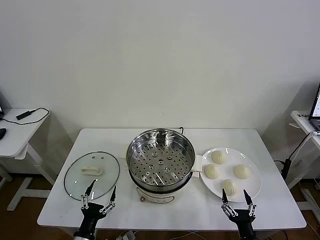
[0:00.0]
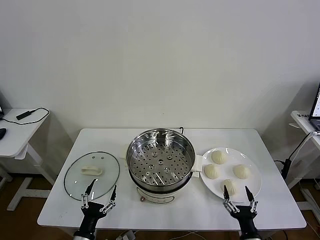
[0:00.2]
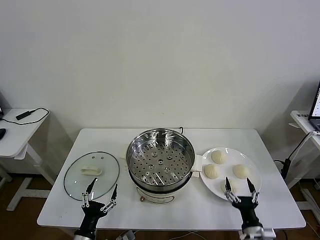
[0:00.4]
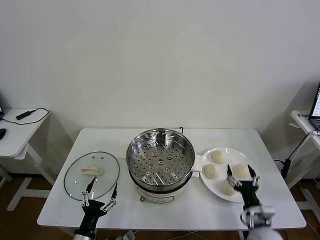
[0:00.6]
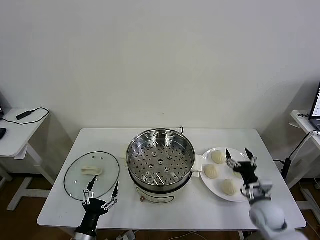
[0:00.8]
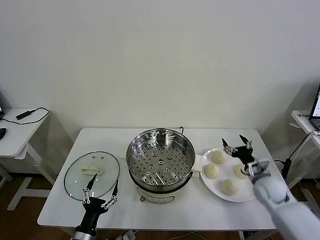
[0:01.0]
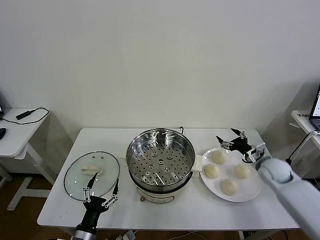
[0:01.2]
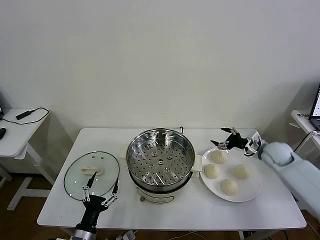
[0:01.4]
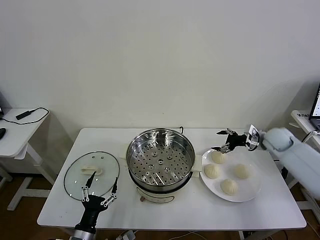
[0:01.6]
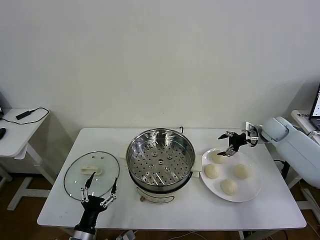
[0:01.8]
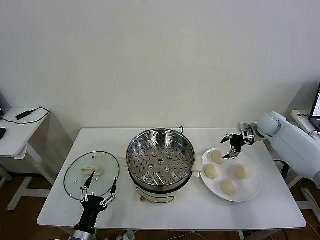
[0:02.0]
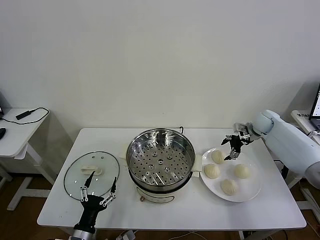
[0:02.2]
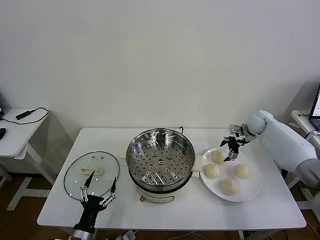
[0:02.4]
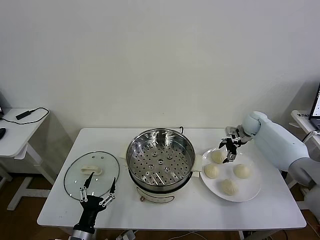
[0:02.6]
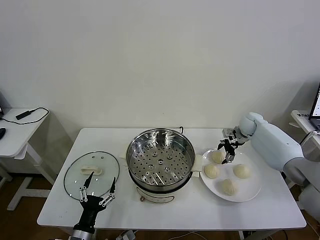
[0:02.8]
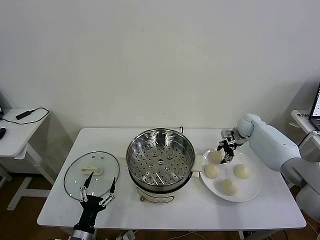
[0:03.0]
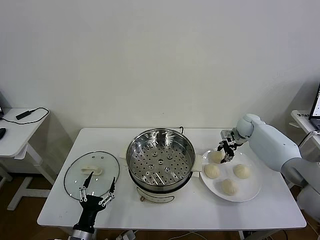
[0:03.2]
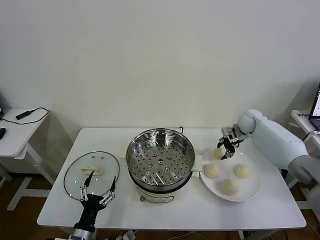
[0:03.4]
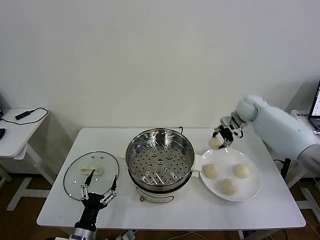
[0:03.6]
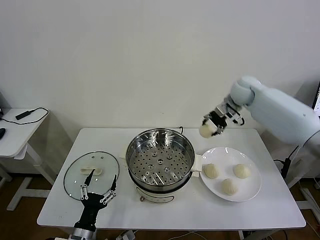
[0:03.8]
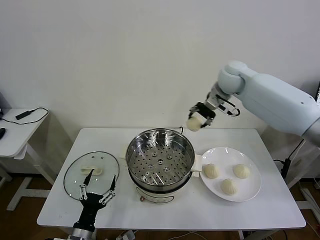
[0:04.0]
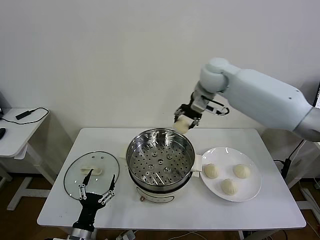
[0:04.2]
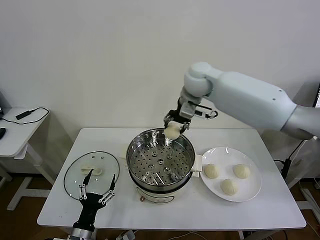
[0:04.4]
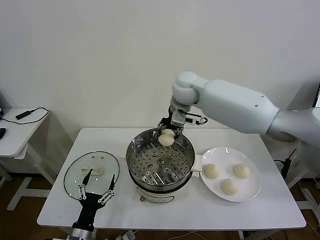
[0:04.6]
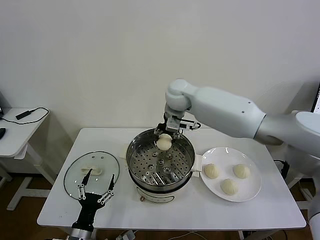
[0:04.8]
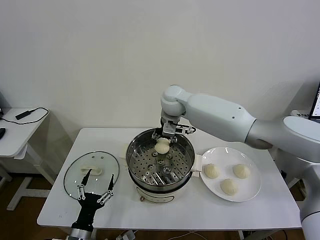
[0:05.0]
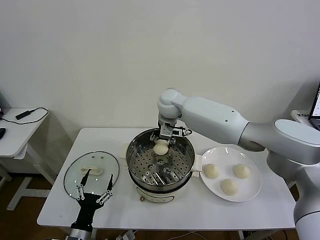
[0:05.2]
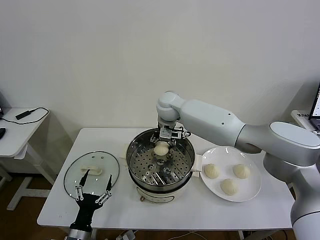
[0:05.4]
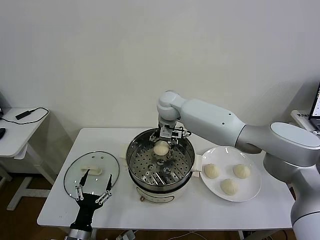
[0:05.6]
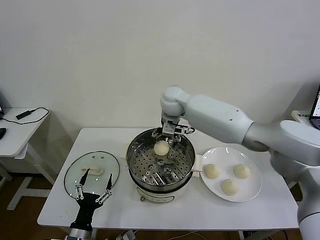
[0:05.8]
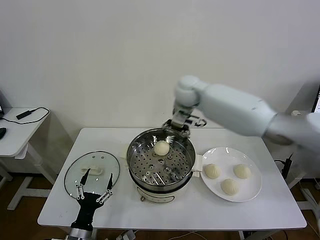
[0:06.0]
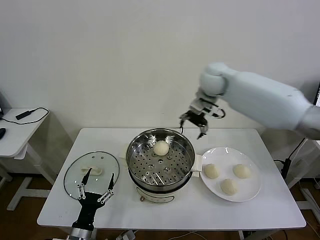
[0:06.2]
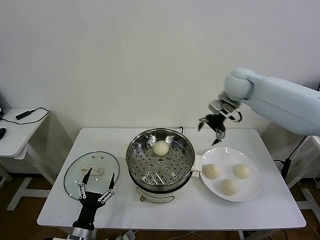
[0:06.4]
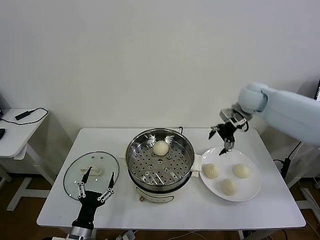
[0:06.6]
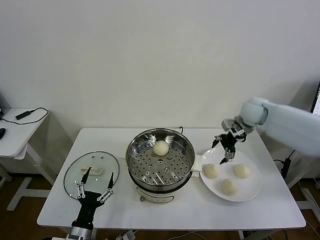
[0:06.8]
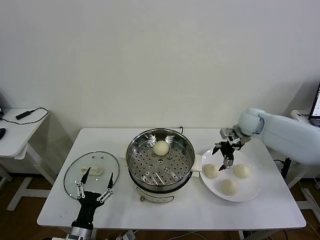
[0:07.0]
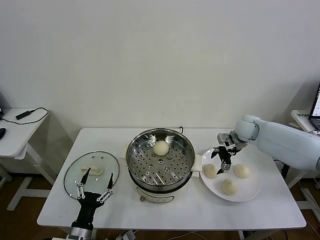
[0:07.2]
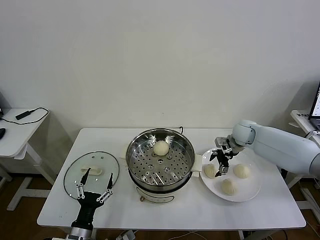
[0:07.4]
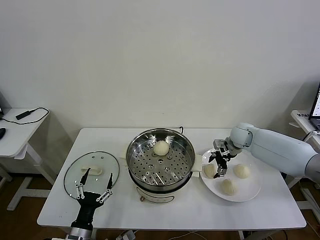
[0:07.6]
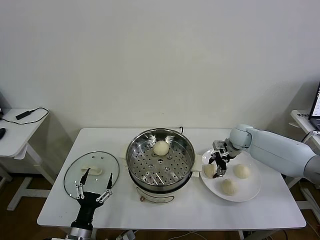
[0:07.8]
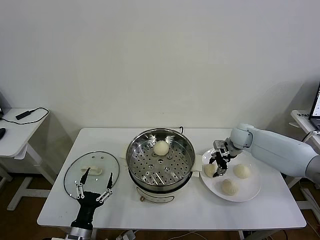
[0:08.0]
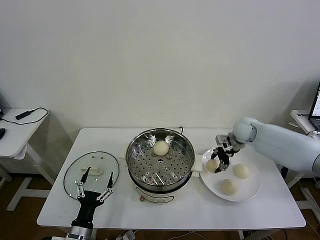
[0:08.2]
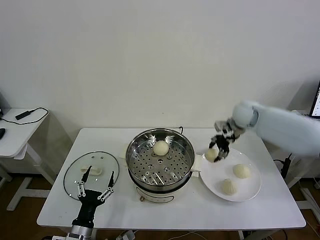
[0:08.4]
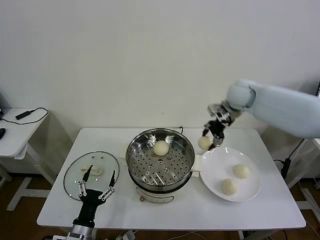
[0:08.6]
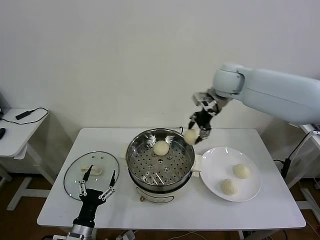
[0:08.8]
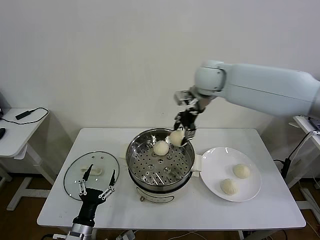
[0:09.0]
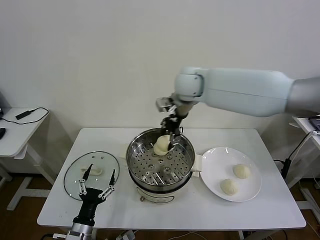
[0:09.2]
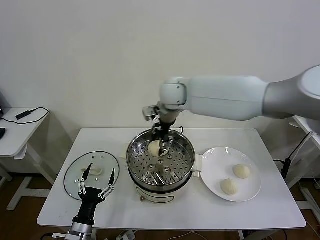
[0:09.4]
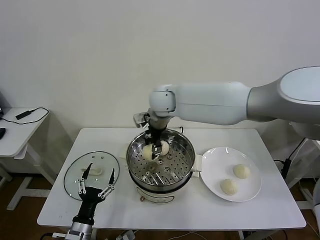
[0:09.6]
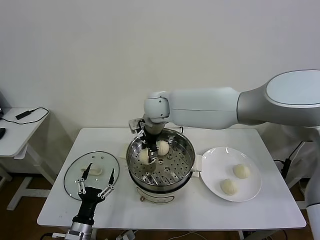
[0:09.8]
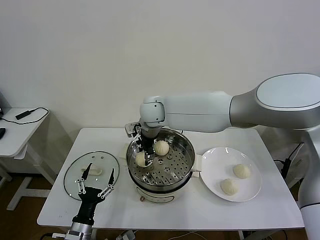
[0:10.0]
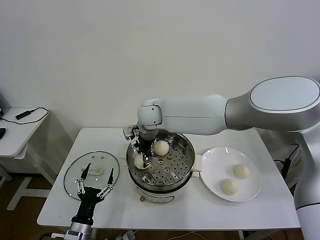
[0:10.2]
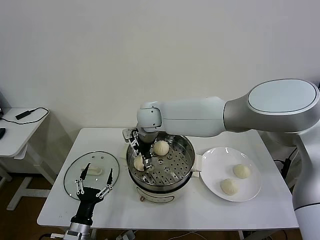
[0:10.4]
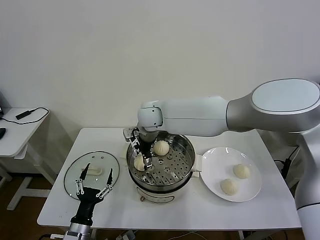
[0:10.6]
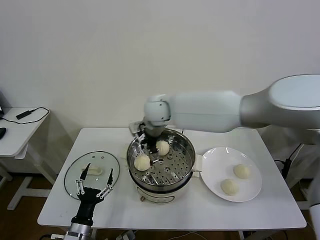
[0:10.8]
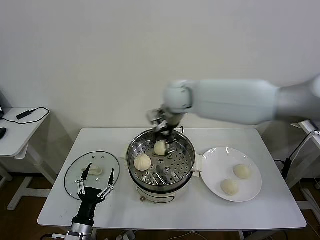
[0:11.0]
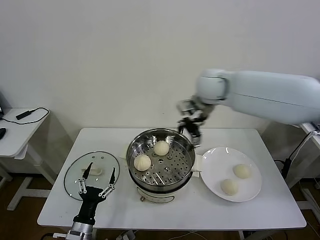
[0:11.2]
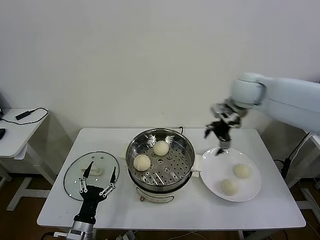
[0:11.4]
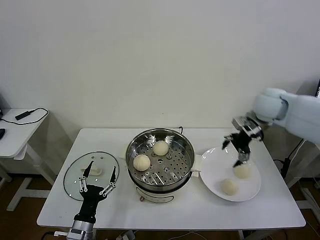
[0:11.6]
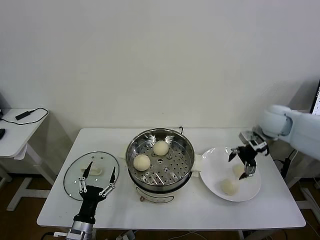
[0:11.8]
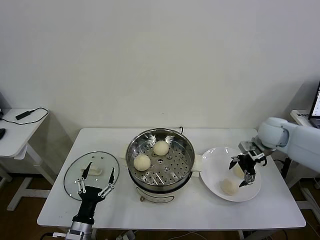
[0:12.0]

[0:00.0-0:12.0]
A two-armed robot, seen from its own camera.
Task of the whole recording: take steamed baozi put them in steamer then cover it.
Step, 0:00.0 to 0:03.0: Grasp the baozi in the plate with right gripper.
Step, 0:03.4 to 0:05.6: Place the baozi on the steamer with right gripper.
Step, 0:05.8 to 0:08.0: Grasp the baozi in the plate with right gripper.
Step, 0:08.2 to 0:10.4: Place the baozi on the steamer with right gripper.
0:01.6 to 0:03.0: The right gripper travels forward and to the left by some 10 cm, and closes.
0:03.0 to 0:04.4: The right gripper travels to the left and upward by approximately 35 cm.
0:04.4 to 0:06.0: The right gripper goes to the left and returns, roughly 5 cm each way, and opens its fingers.
0:06.0 to 0:07.6: The right gripper shifts some 30 cm downward and to the right.
0:07.6 to 0:09.0: The right gripper heads upward and to the left, covering roughly 30 cm, and closes its fingers.
0:09.0 to 0:10.4: The right gripper travels to the left and downward by roughly 20 cm, and opens its fingers.
0:10.4 to 0:12.0: The right gripper is displaced to the right by some 40 cm.

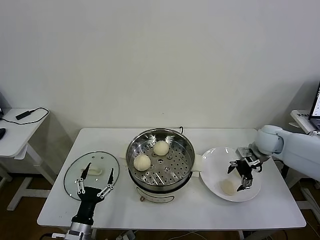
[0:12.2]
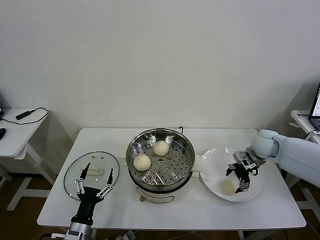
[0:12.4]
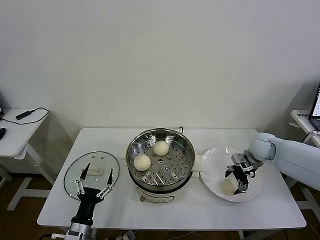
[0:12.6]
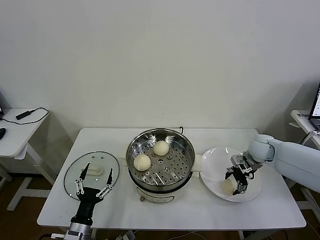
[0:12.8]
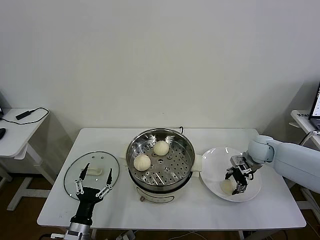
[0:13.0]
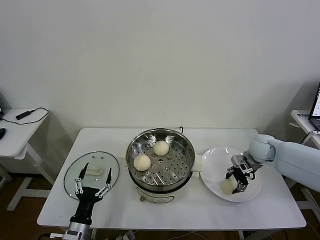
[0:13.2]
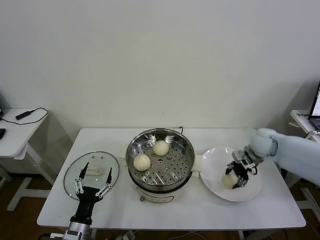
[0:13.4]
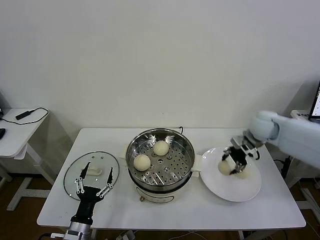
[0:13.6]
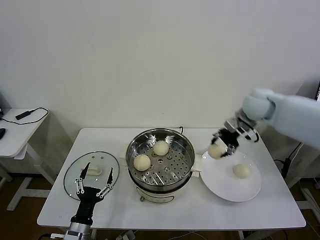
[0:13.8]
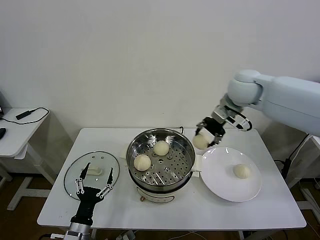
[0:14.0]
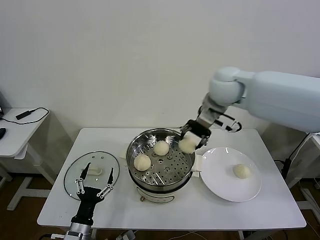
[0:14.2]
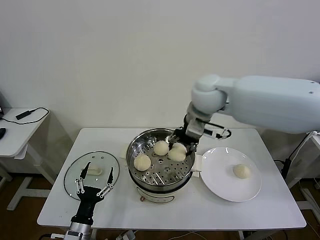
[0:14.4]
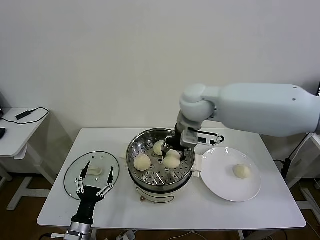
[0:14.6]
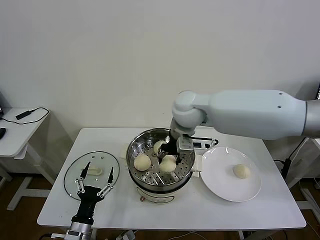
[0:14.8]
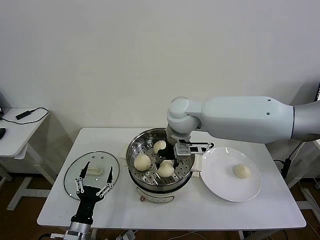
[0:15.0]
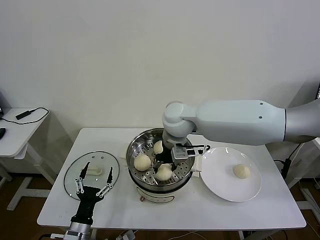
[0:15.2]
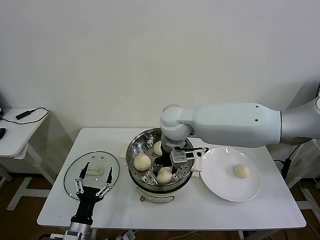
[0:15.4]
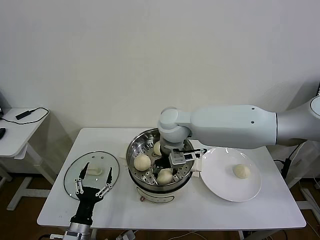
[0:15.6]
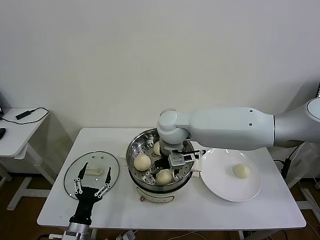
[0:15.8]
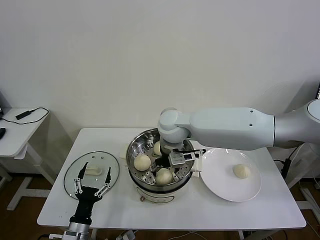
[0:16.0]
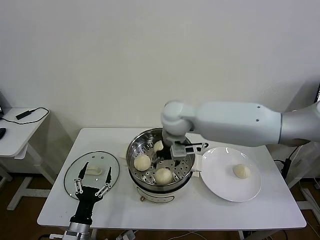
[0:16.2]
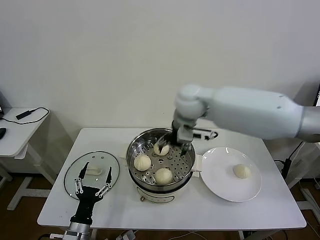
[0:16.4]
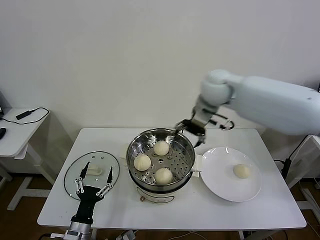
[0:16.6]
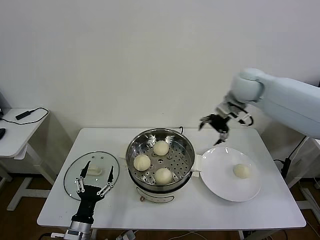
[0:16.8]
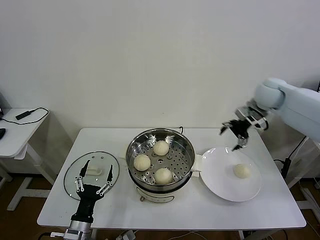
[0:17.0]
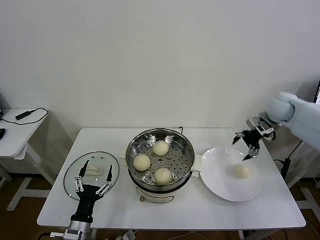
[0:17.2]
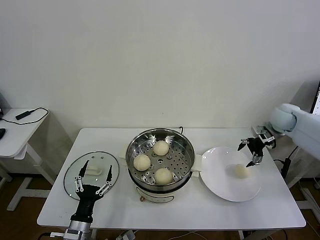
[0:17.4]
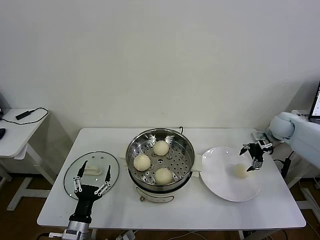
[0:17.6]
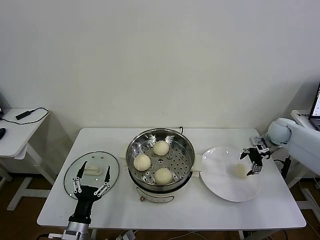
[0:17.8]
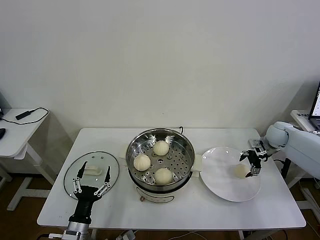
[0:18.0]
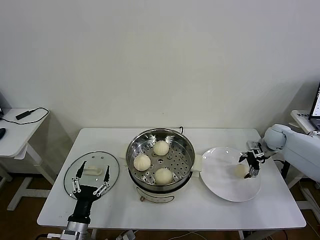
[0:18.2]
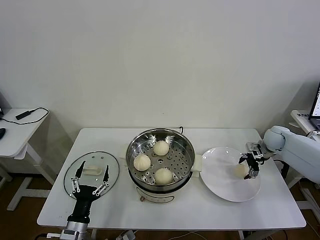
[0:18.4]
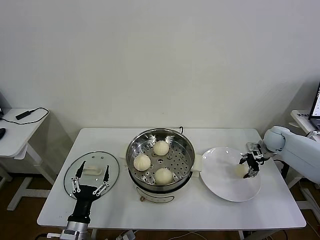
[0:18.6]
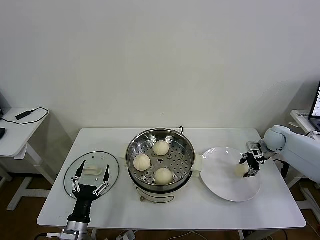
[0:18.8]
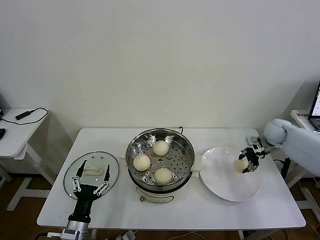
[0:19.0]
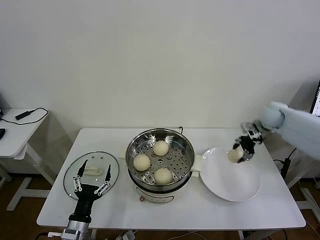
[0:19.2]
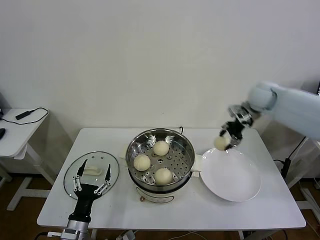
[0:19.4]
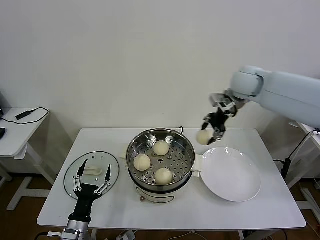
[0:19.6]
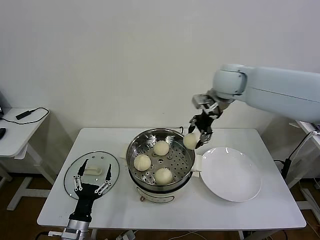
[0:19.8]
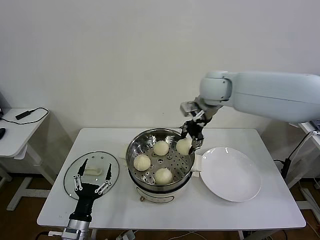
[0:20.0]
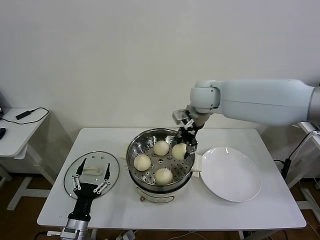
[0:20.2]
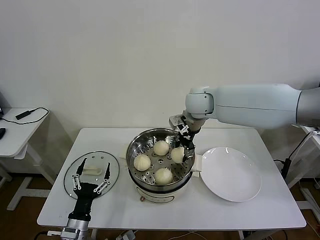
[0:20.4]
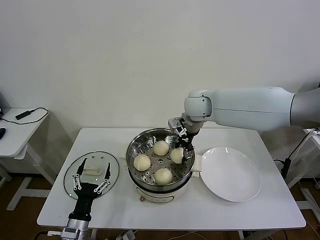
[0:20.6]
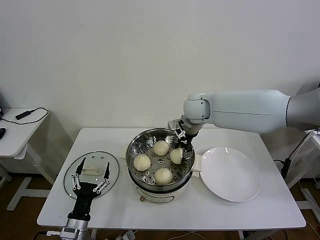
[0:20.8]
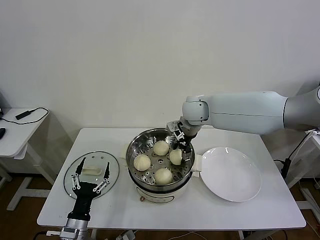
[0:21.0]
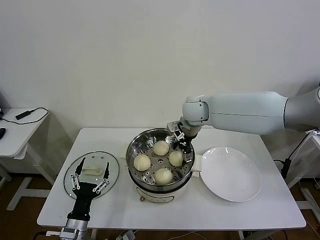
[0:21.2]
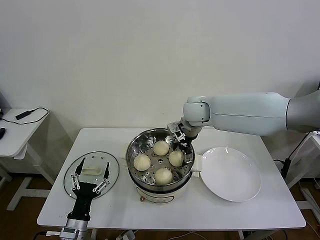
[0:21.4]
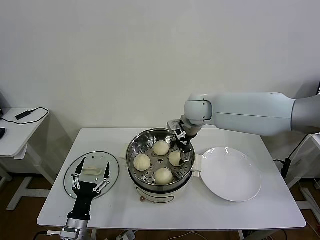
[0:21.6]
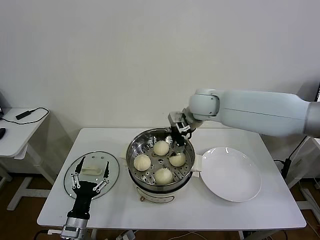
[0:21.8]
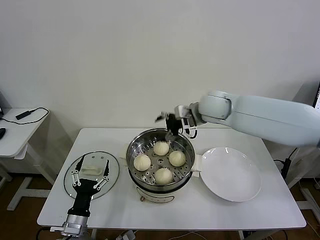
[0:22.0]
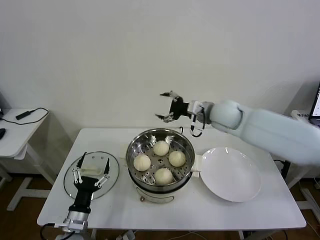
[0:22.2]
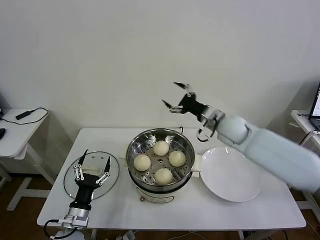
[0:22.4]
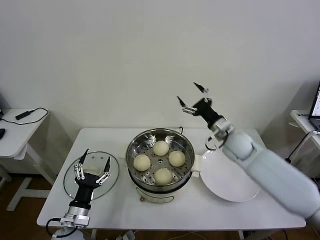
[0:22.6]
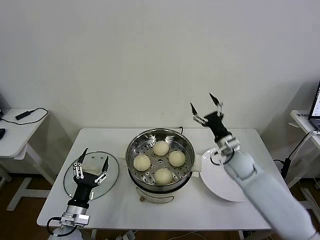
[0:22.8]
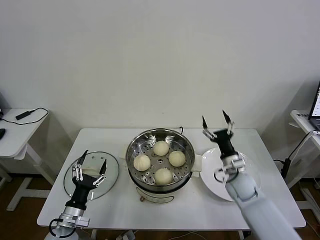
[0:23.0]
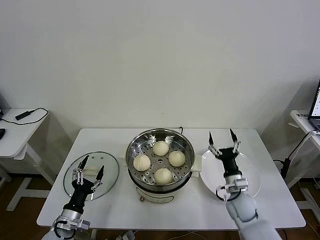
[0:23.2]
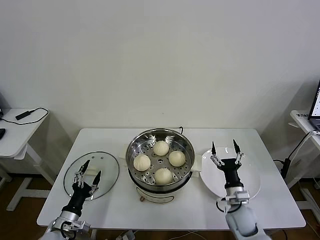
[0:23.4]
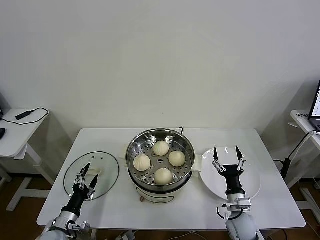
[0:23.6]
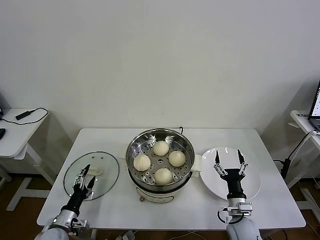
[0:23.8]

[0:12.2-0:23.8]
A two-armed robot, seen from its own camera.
Task of the whole recording: take steamed baozi put them in steamer then cover it.
Step, 0:13.4 to 0:16.0: Place the baozi on the steamer with right gripper.
Step, 0:16.2 to 0:18.8: Grasp the baozi in the plate with right gripper.
Step, 0:19.0 to 0:21.2: Place the baozi on the steamer with right gripper.
0:12.2 to 0:13.6: The right gripper shifts roughly 10 cm upward, and closes up.
0:13.6 to 0:15.0: The right gripper moves to the left, approximately 30 cm.
0:15.0 to 0:16.6: The right gripper moves to the right, forward and upward, roughly 15 cm, and opens its fingers.
0:16.6 to 0:18.0: The right gripper goes some 35 cm to the right and downward.
0:18.0 to 0:19.4: The right gripper heads upward and to the left, covering approximately 20 cm, and closes up.
0:19.4 to 0:21.0: The right gripper moves to the left, about 20 cm, and opens up.
0:21.0 to 0:22.4: The right gripper heads to the right and downward, covering roughly 15 cm, and opens up.
0:22.4 to 0:23.8: The right gripper goes roughly 35 cm downward and backward; the left gripper shifts some 10 cm to the left and downward.
